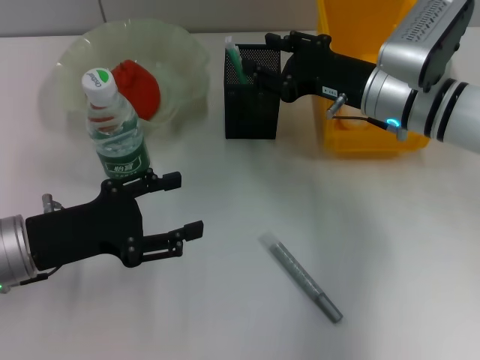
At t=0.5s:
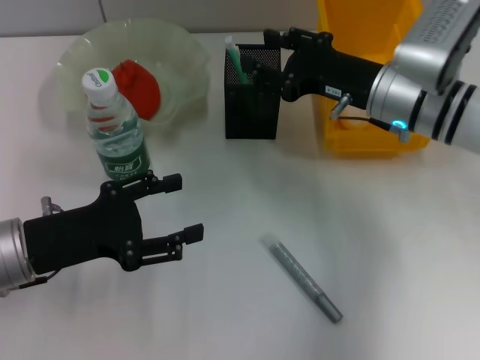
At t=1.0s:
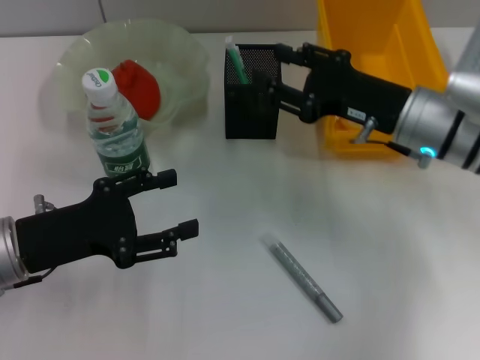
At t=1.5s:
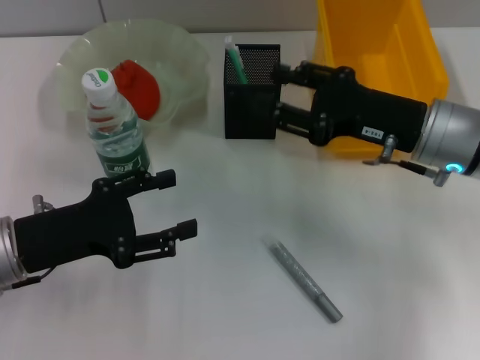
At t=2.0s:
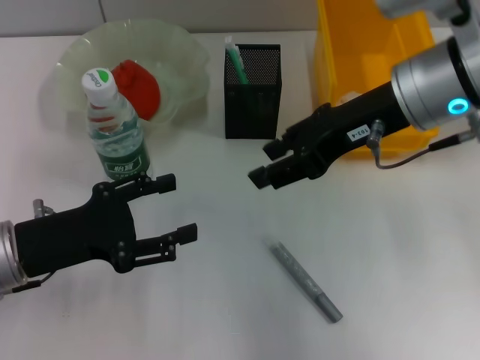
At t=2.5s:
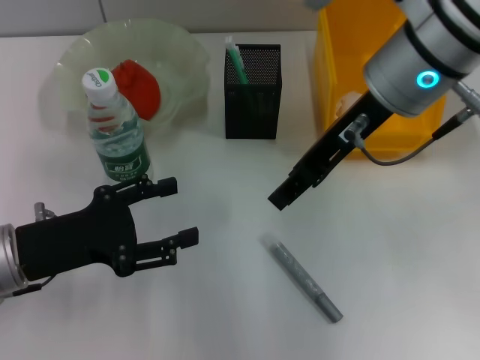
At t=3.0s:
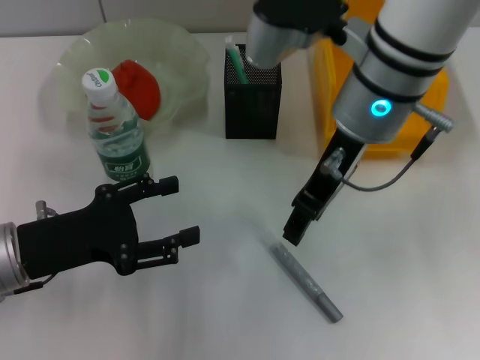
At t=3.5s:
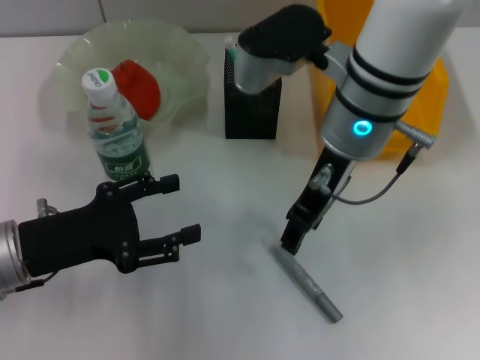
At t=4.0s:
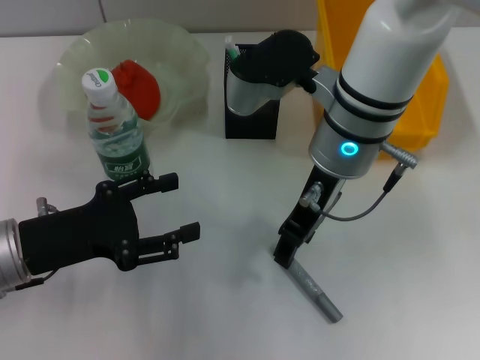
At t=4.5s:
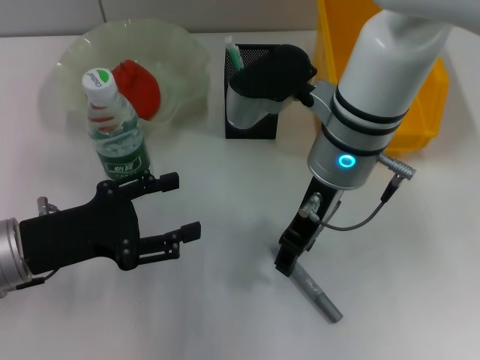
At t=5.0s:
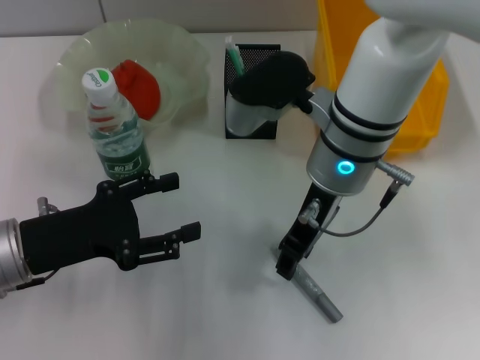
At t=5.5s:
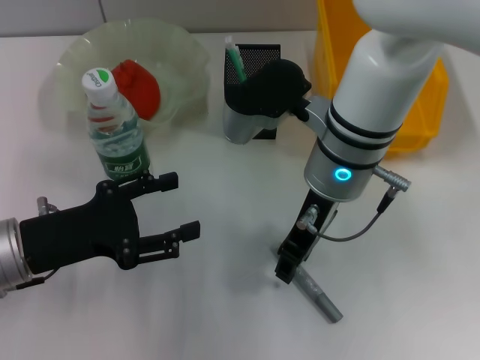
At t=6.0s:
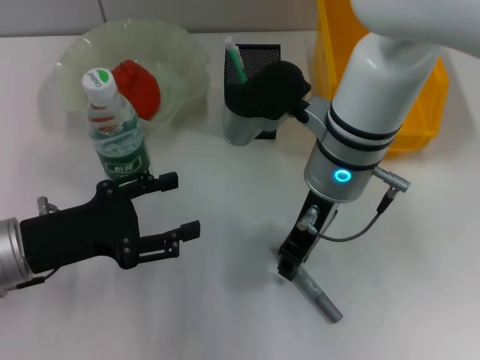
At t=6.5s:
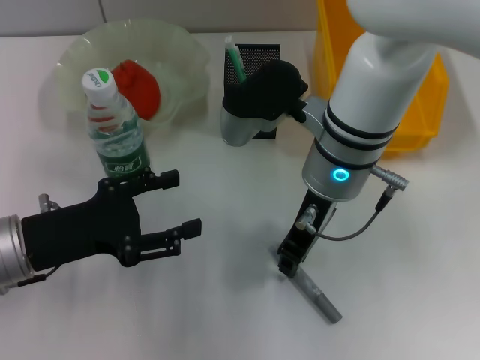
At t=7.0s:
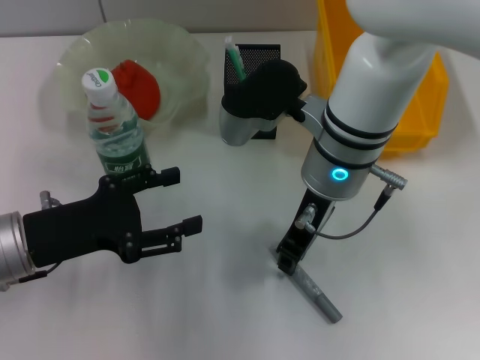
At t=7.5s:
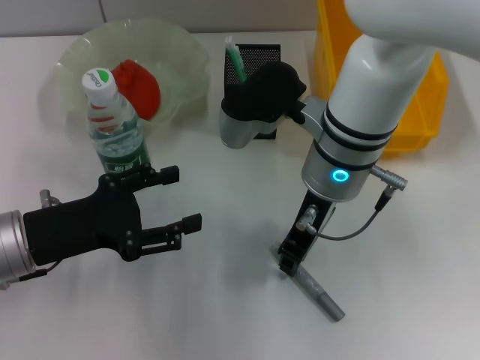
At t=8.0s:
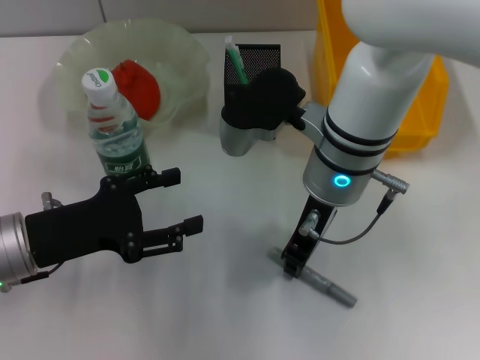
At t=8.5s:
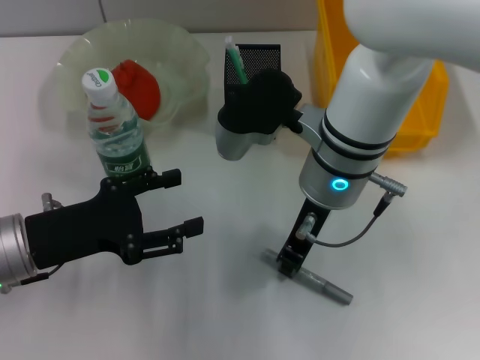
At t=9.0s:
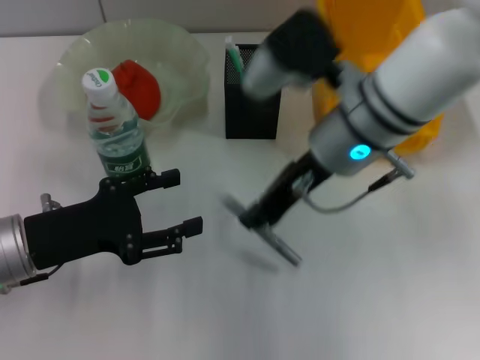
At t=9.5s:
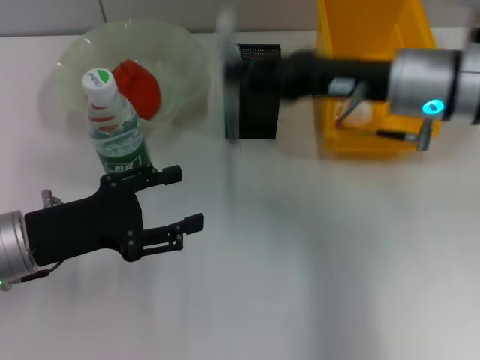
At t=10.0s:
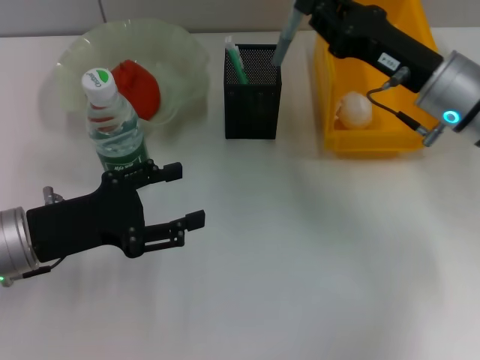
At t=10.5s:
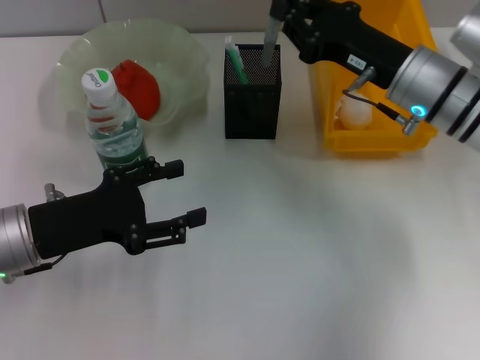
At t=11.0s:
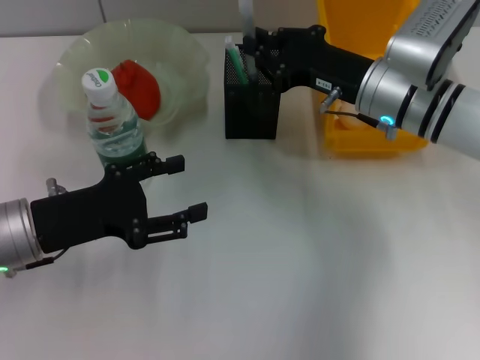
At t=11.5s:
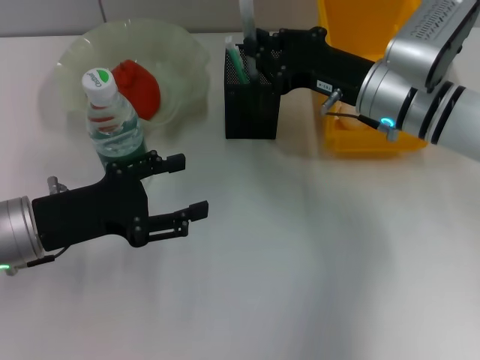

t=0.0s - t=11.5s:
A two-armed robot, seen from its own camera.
Step, t=0.5s - t=8.0s: Grab the gray glue with the right hand.
t=0.0s - t=2.0s: The right gripper travels upward by some 10 cm.
t=2.0s - t=4.0s: The right gripper goes some 10 cm to the left and downward.
t=4.0s - t=6.0s: The grippers make only small movements.
t=6.0s - t=7.5s: Neither gripper changes place.
t=7.5s - t=9.5s: The right gripper goes approximately 10 cm to the right.
t=9.5s - t=11.5s: The right gripper heads downward, covering approximately 5 cm.

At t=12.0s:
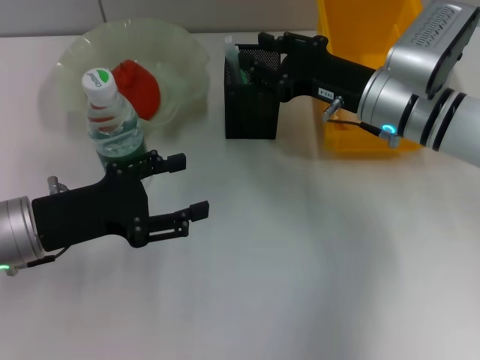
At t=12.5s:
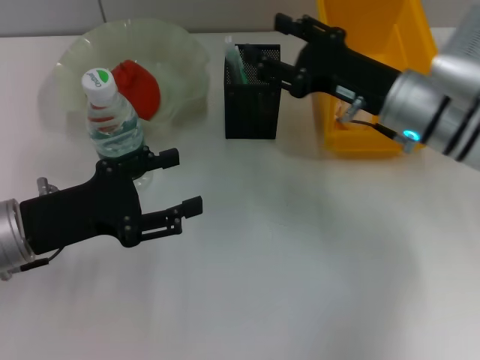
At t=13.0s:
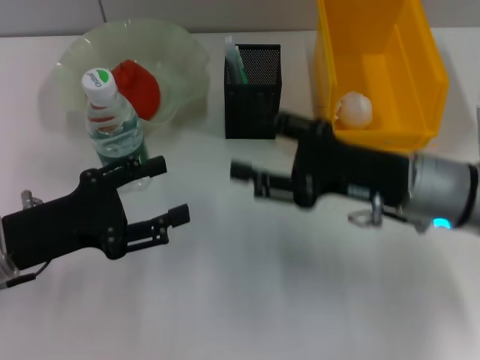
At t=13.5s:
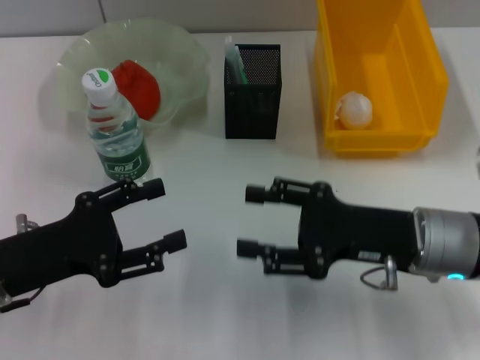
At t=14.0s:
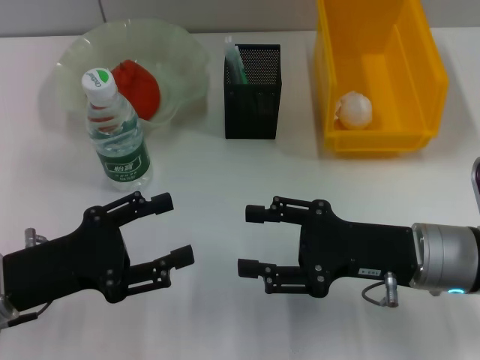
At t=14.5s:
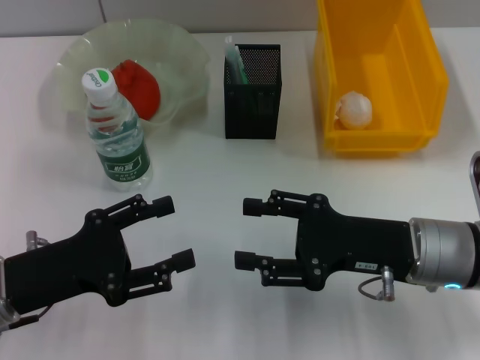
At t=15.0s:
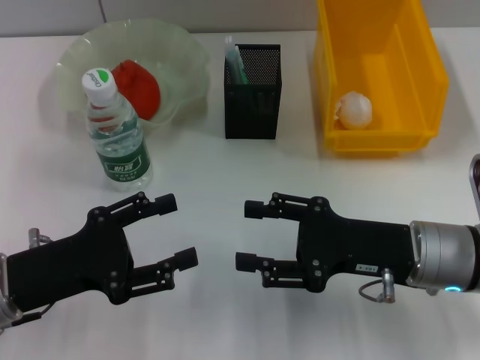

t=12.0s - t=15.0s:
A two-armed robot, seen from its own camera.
t=12.0s - t=13.5s: The right gripper heads backward, covering roughly 10 cm, and opens up.
t=13.5s - t=15.0s: Both grippers stay put.
